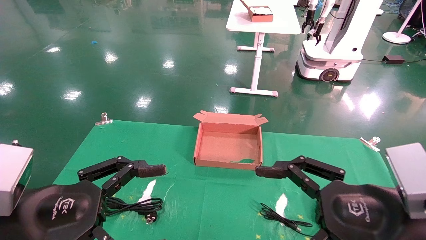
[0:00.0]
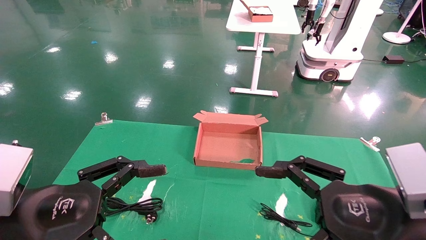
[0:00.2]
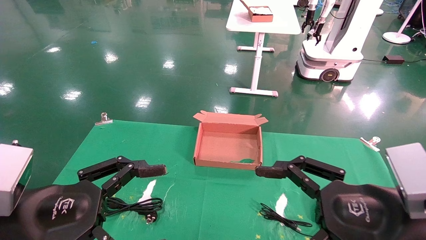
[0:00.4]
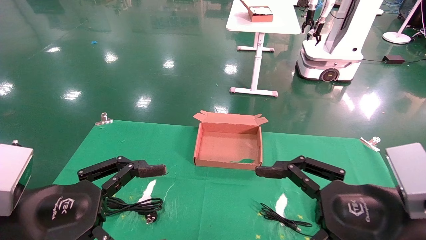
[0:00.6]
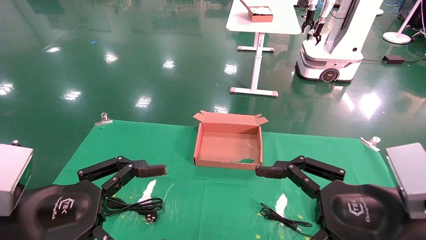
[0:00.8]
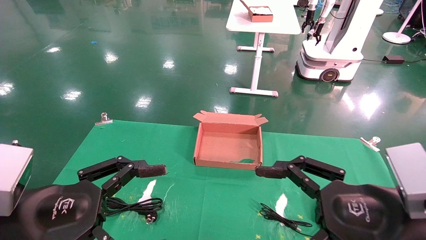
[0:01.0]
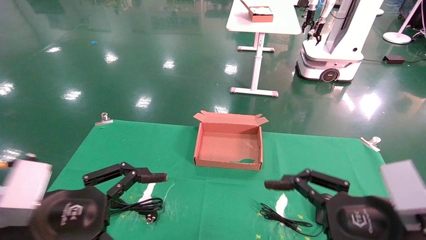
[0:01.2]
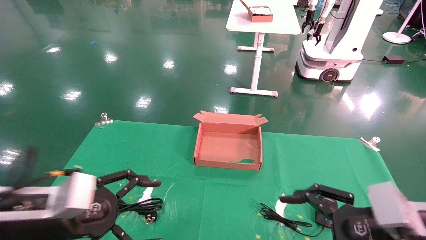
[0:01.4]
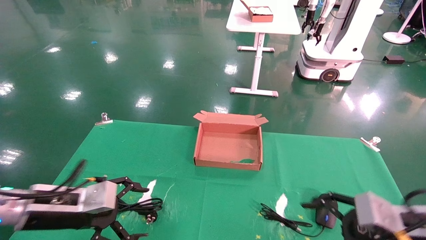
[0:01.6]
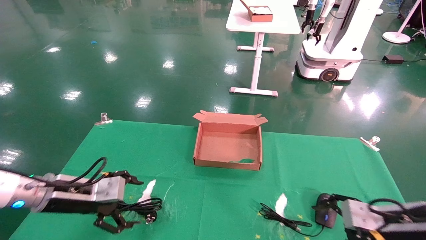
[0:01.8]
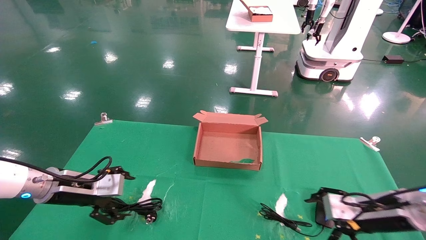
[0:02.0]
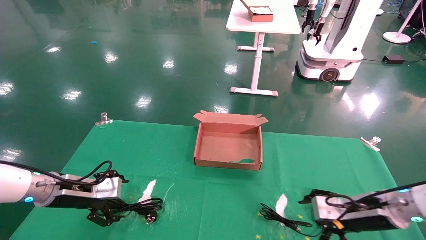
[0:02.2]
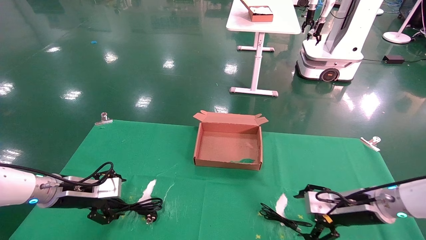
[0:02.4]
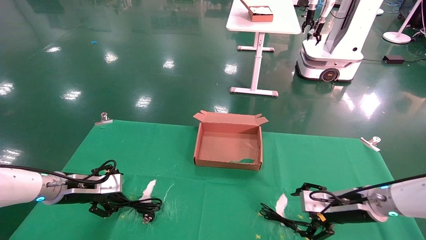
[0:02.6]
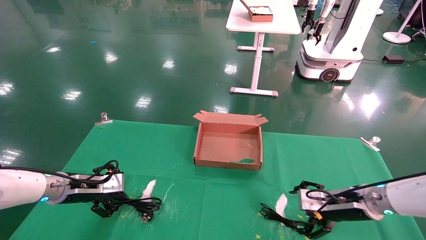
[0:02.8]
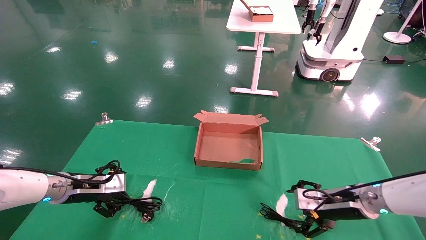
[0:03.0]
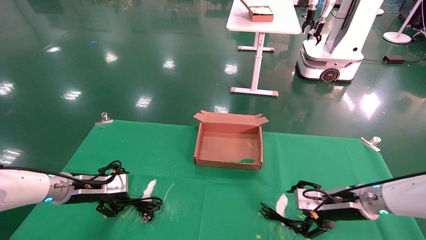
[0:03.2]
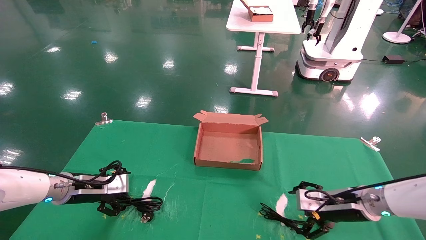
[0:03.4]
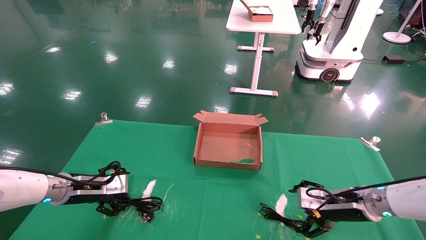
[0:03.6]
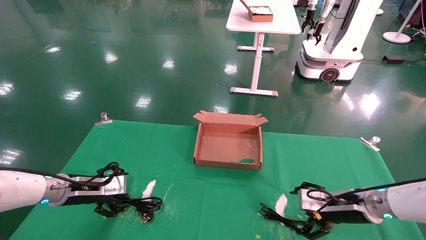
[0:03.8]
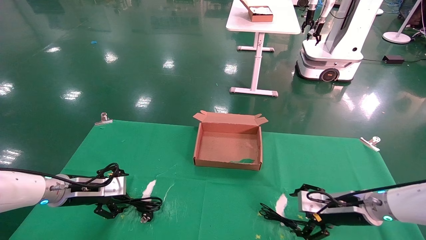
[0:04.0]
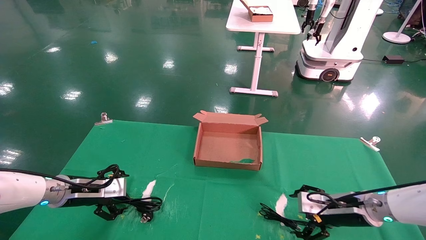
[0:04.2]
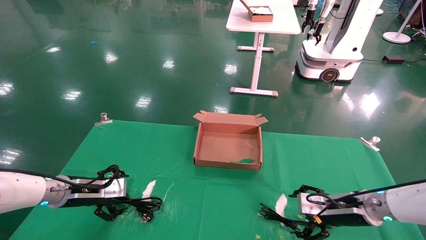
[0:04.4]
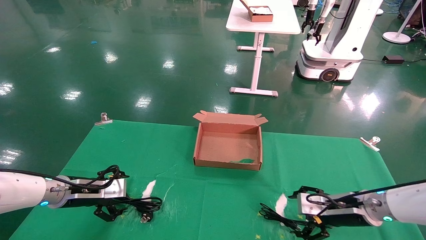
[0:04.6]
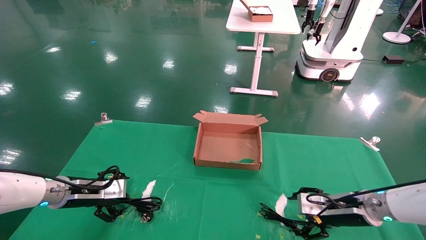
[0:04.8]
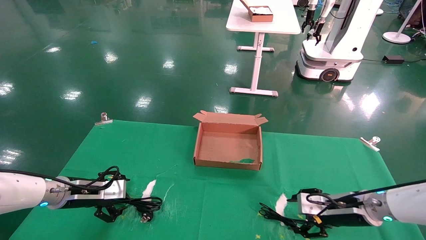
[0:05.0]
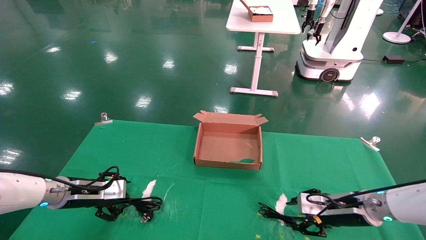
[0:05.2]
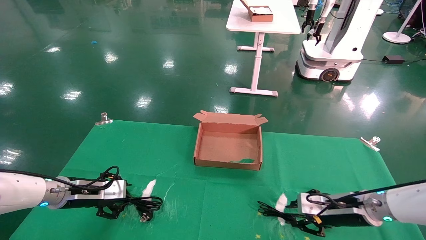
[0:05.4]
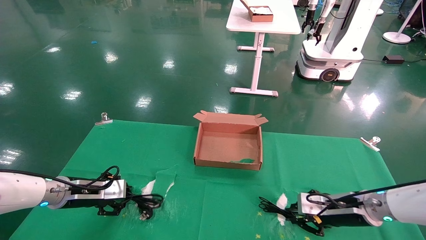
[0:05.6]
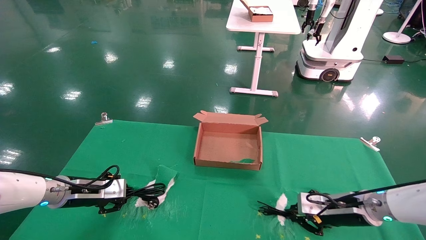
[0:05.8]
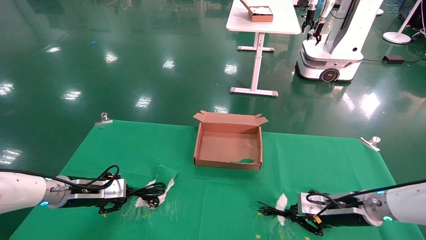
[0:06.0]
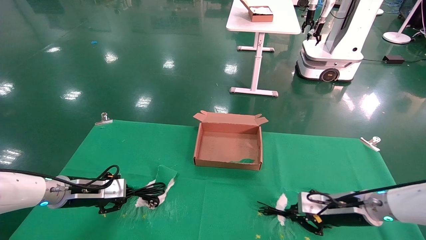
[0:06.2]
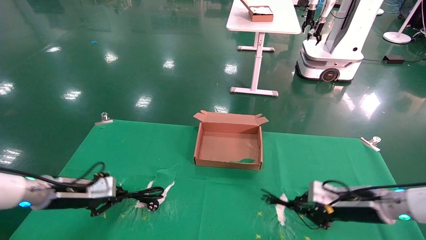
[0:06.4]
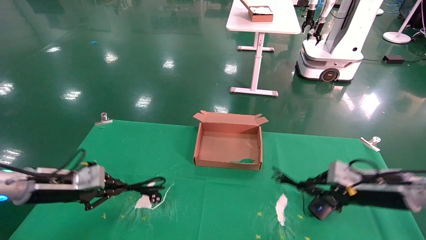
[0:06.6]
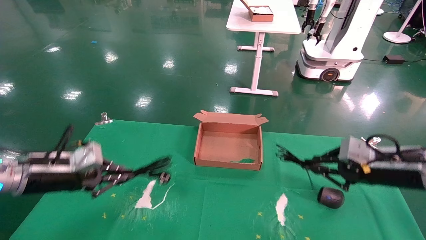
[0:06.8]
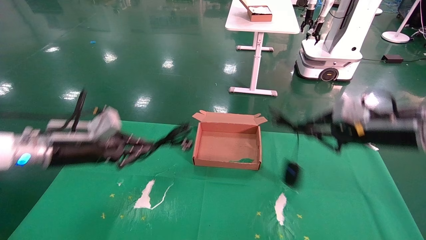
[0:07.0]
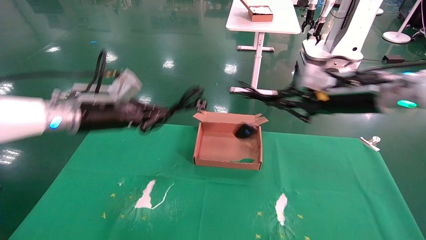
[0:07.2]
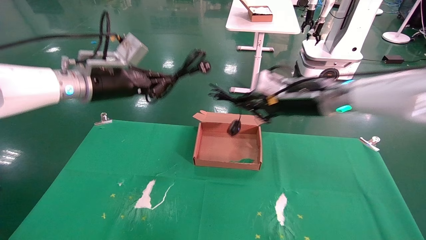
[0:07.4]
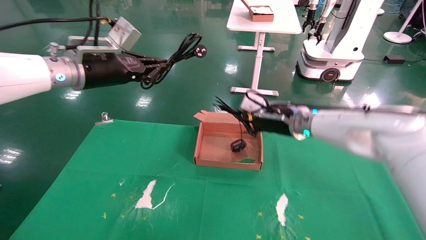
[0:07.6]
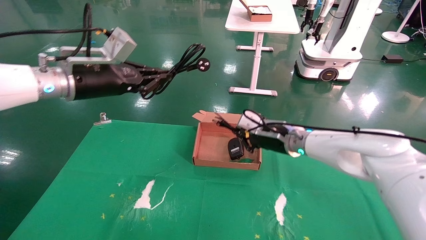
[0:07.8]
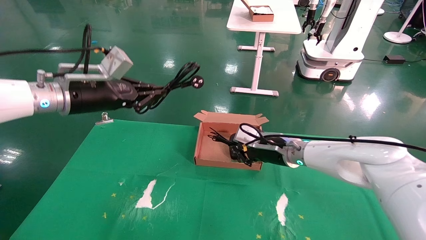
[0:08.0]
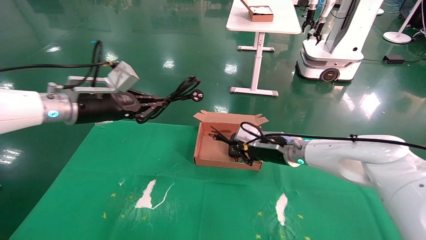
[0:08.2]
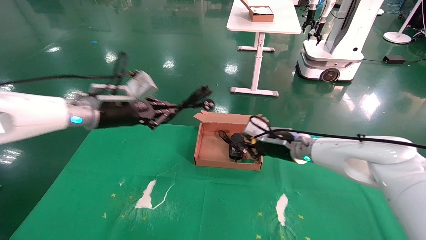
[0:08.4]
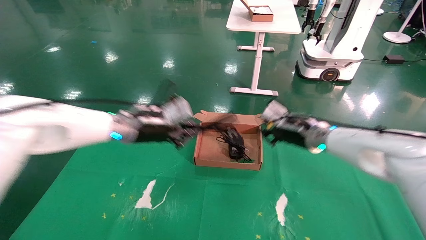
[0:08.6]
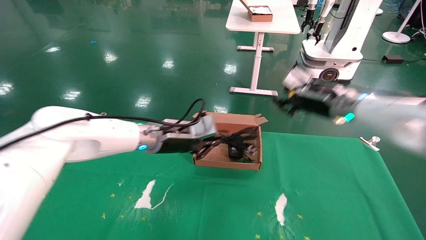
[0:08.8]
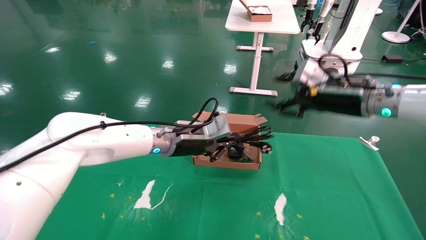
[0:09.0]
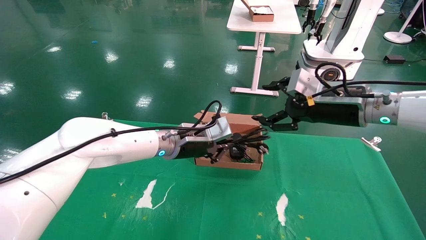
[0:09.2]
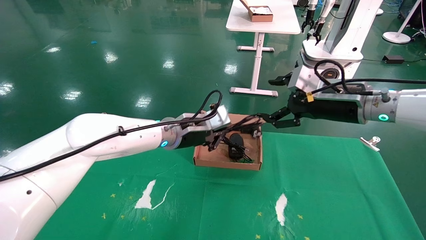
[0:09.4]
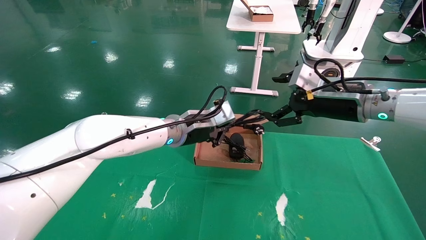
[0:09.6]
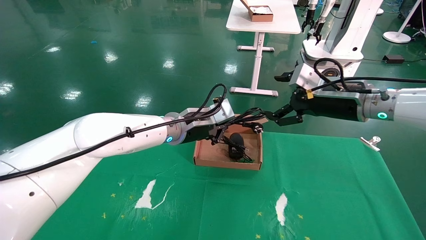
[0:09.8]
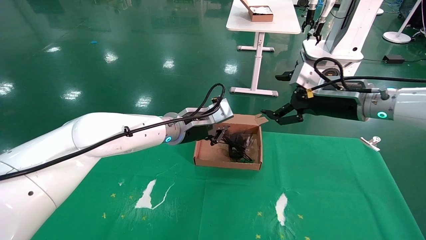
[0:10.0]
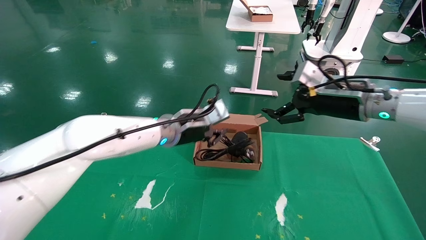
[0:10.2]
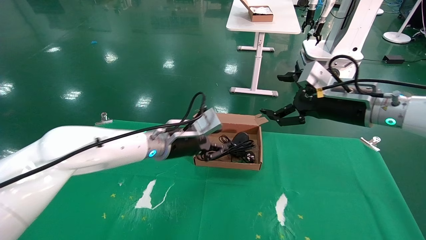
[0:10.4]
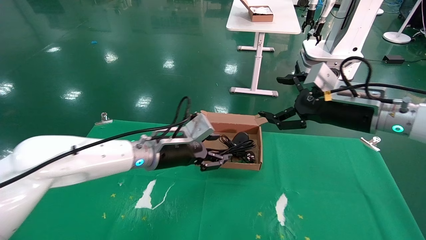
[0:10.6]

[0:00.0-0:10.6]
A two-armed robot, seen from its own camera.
Step, 0:01.4 to 0:05.6: Grab and lift both the mouse and power cord from the accessory packaging area at the same time.
Step, 0:05.8 to 0:10.2: Place the mouse and power cord into the box.
0:00.0 to 0:01.6: The right gripper moves forward, to the right and downward, about 15 cm, while the left gripper travels forward and downward by roughly 15 cm.
0:01.6 to 0:03.0: Both grippers travel together forward, some 15 cm.
0:03.0 to 0:04.6: The grippers make only small movements.
0:04.6 to 0:06.0: The right gripper closes its fingers; the left gripper closes up.
0:06.0 to 0:07.6: The right gripper moves upward, to the left and forward, approximately 20 cm; the left gripper goes approximately 25 cm upward.
0:07.6 to 0:09.0: The right gripper is displaced to the right and upward by roughly 10 cm, and opens, while the left gripper goes some 20 cm to the right and downward.
0:09.0 to 0:10.6: The left gripper opens its fingers, while the right gripper opens.

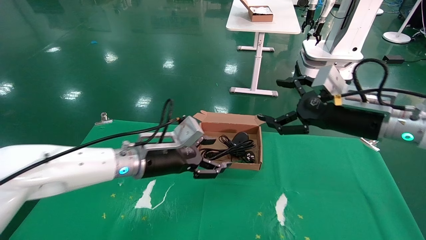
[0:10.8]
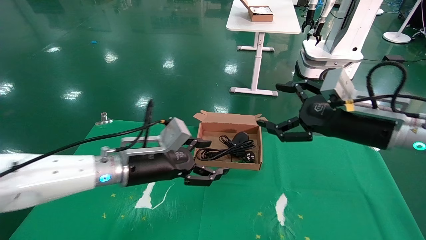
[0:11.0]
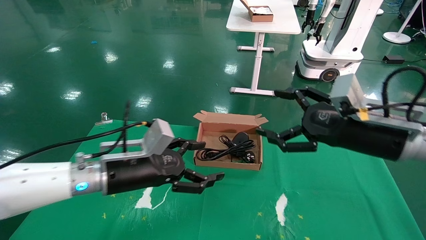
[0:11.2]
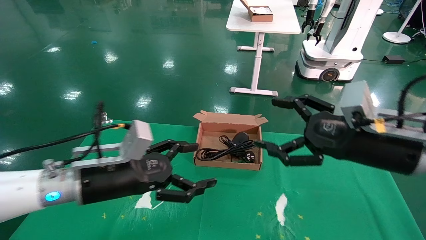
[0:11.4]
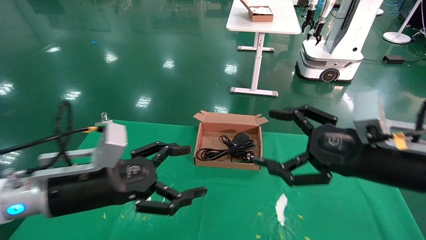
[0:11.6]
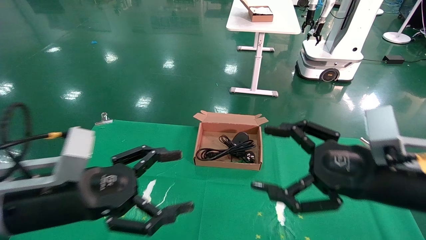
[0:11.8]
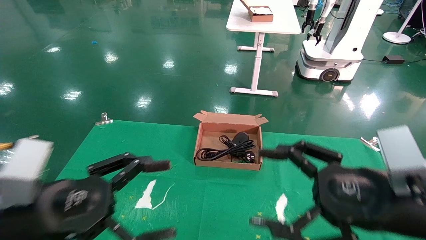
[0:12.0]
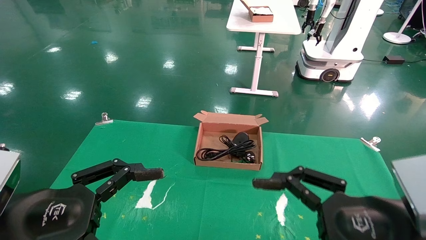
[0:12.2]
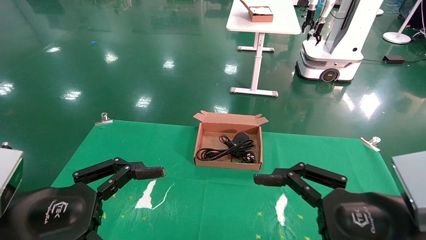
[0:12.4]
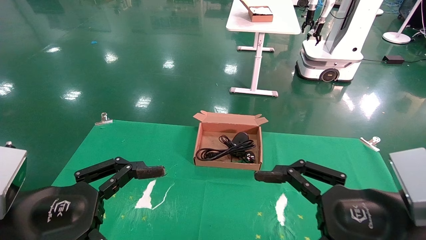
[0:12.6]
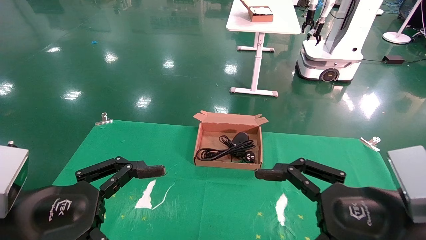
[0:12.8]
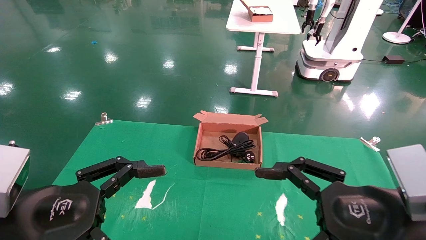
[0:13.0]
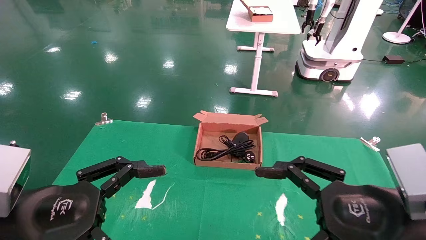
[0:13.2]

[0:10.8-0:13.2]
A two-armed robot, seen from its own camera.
0:10.8 to 0:12.0: The left gripper shifts some 25 cm backward and to the left, and opens. The right gripper is displaced backward by about 15 cm.
0:12.0 to 0:13.2: The grippers make only small movements.

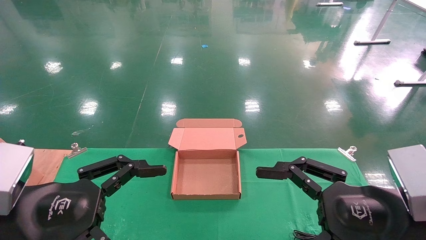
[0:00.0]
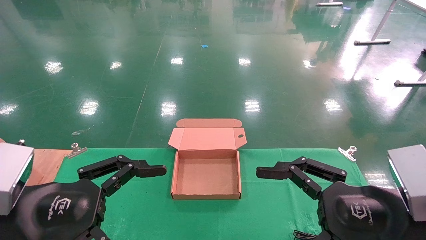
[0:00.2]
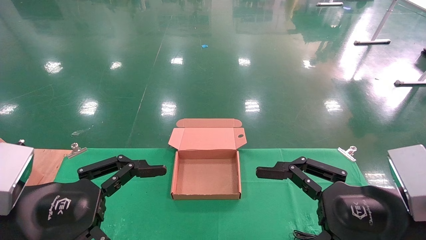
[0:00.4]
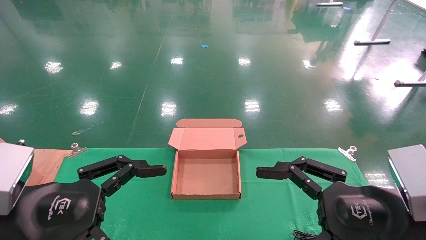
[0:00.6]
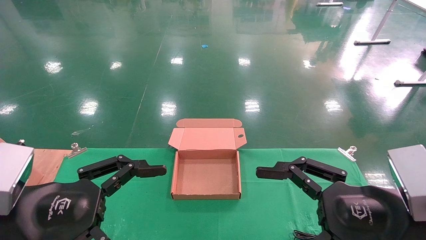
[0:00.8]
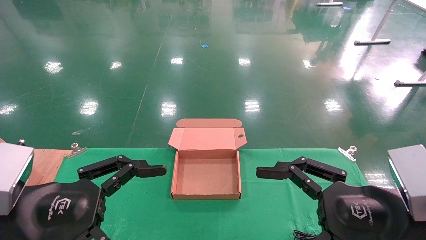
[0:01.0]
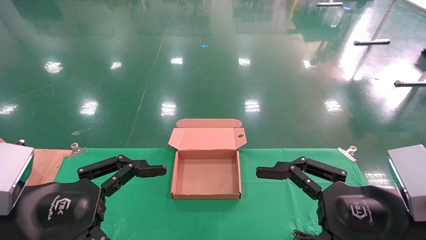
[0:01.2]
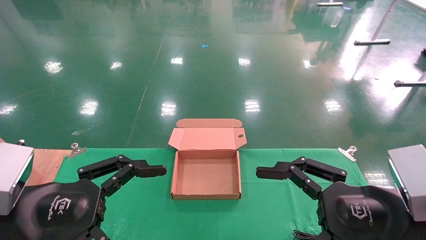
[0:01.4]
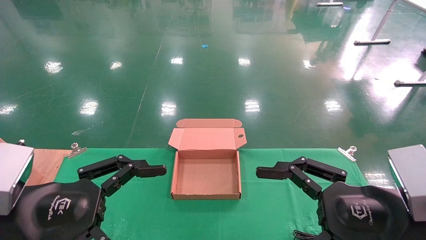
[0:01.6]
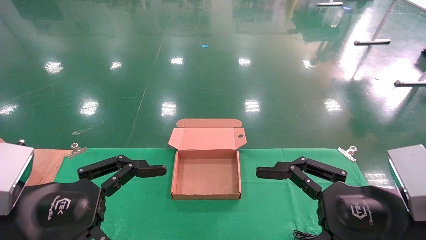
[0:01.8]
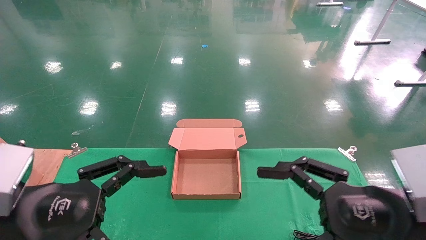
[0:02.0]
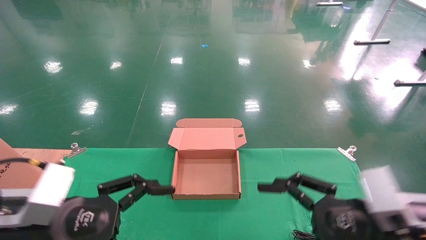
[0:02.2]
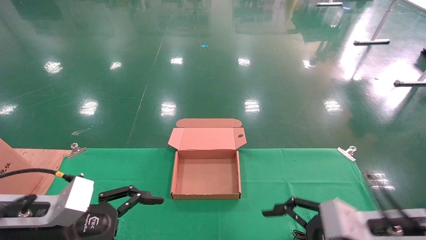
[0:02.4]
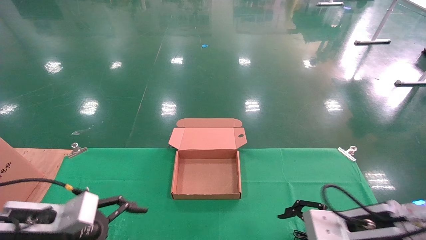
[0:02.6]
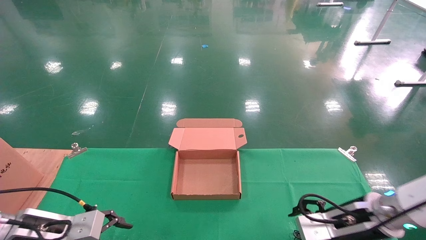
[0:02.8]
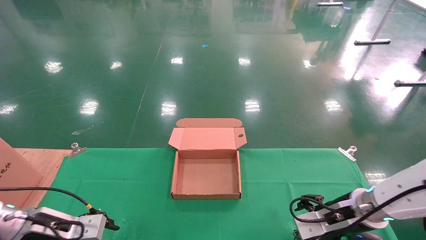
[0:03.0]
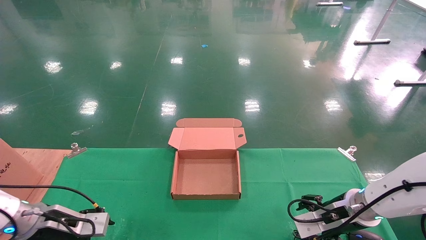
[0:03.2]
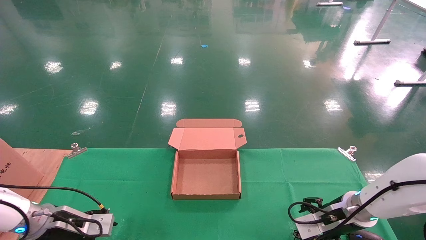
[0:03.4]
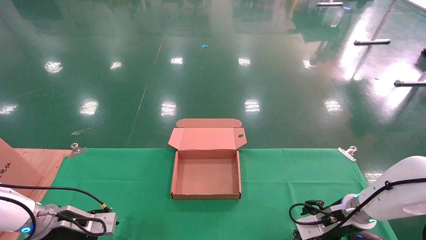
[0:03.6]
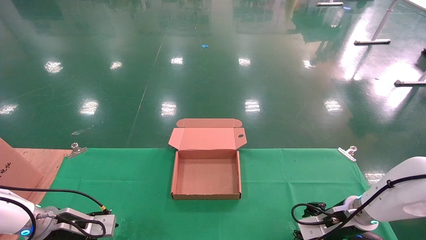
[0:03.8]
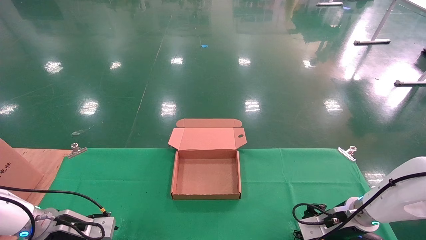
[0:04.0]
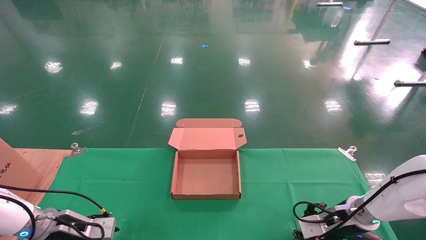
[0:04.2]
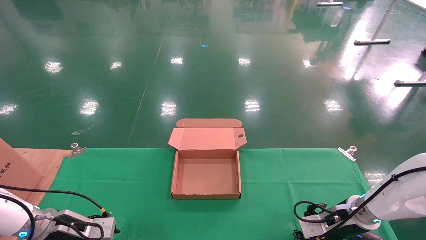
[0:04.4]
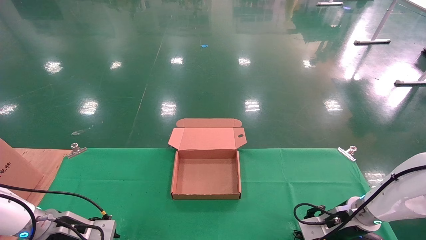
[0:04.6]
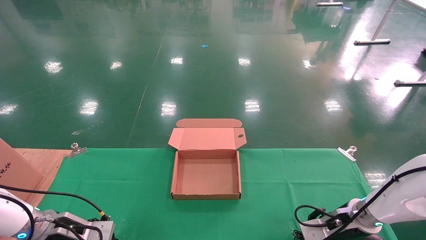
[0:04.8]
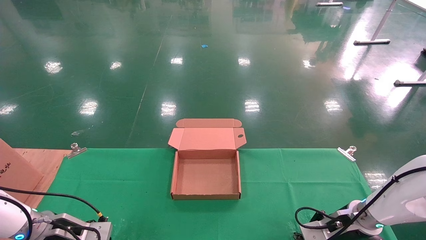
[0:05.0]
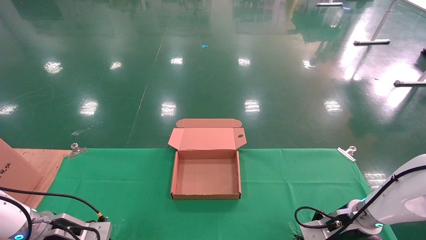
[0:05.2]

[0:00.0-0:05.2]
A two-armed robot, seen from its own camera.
0:00.0 to 0:01.8: Both grippers stay put.
0:01.8 to 0:03.4: The right gripper travels forward and downward by about 25 cm. The left gripper goes some 25 cm forward, downward and to the left.
0:03.4 to 0:05.2: The left gripper closes its fingers; the right gripper closes.
